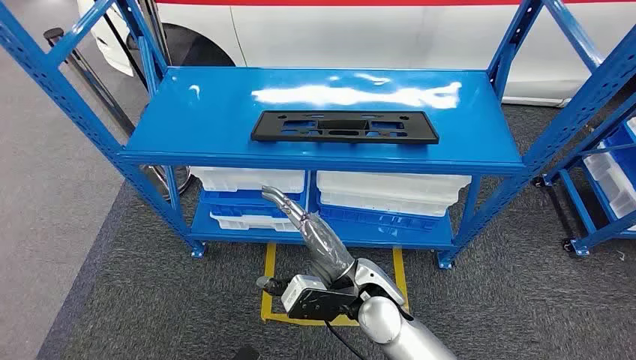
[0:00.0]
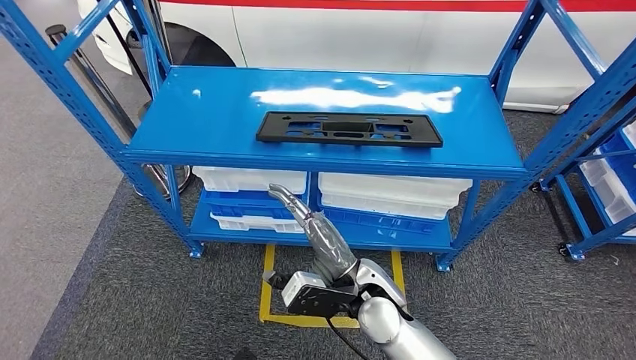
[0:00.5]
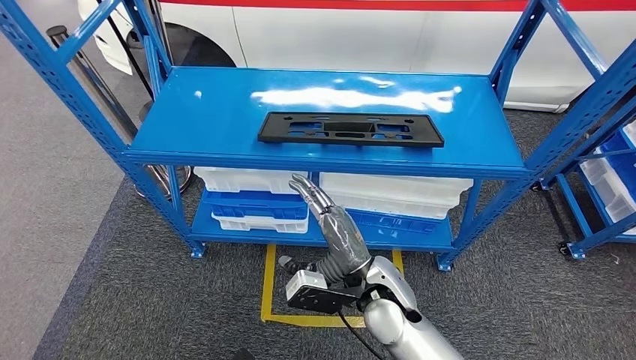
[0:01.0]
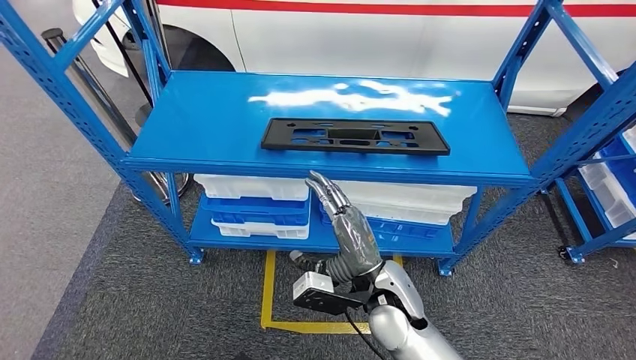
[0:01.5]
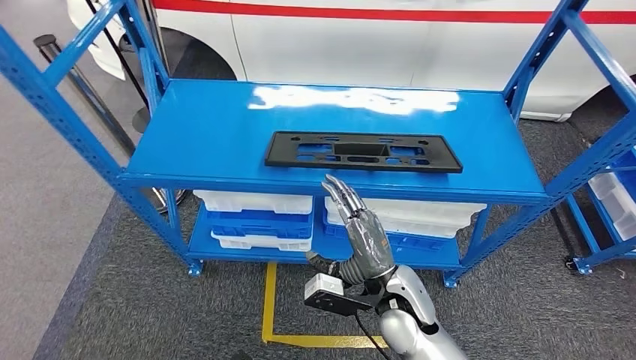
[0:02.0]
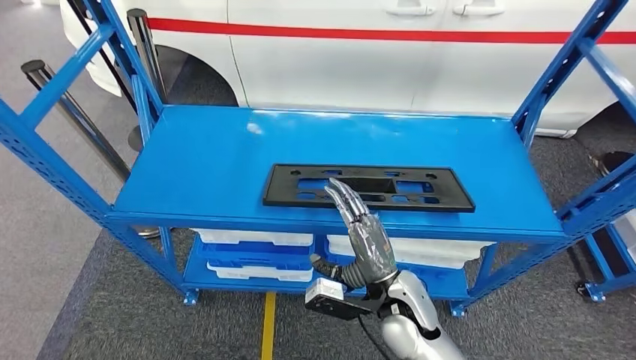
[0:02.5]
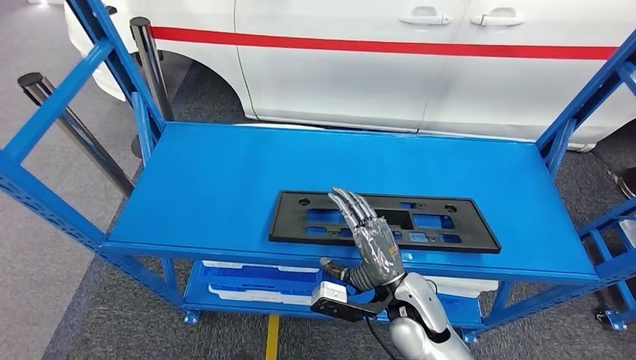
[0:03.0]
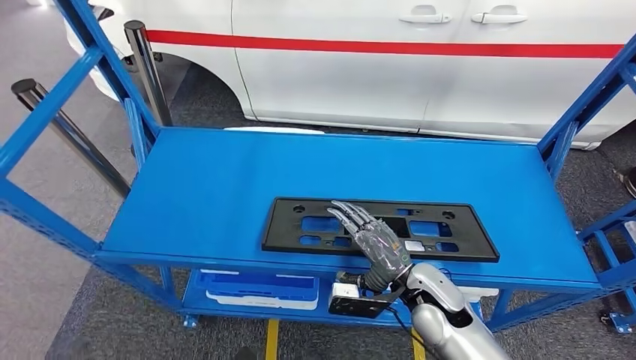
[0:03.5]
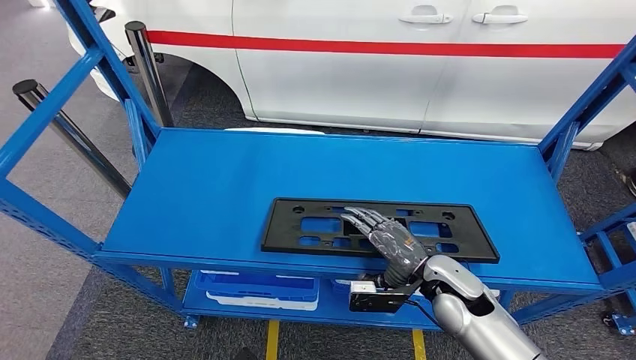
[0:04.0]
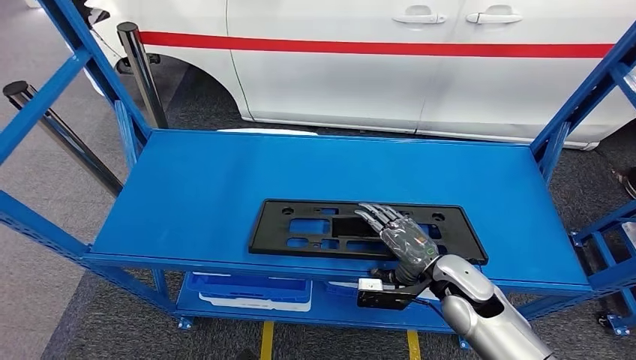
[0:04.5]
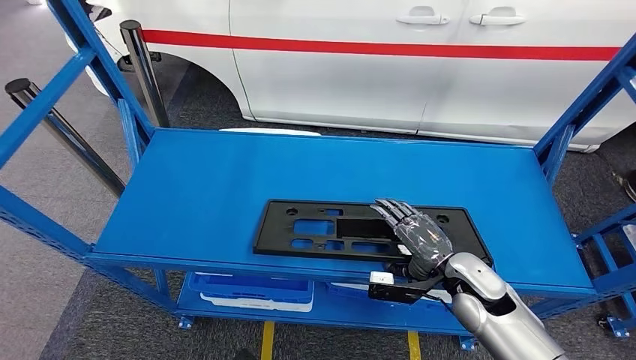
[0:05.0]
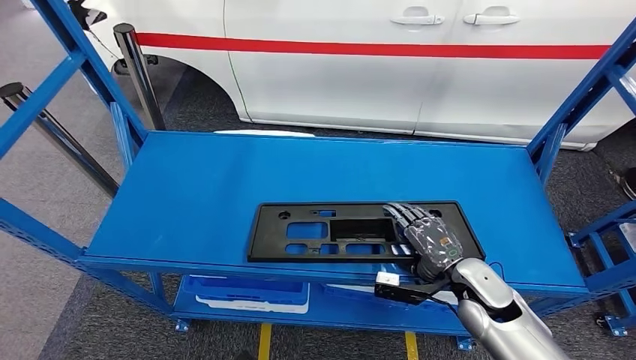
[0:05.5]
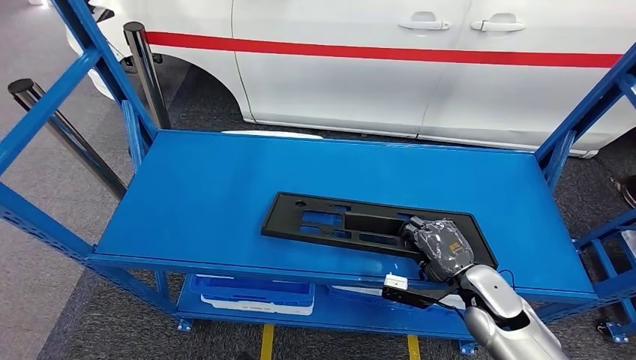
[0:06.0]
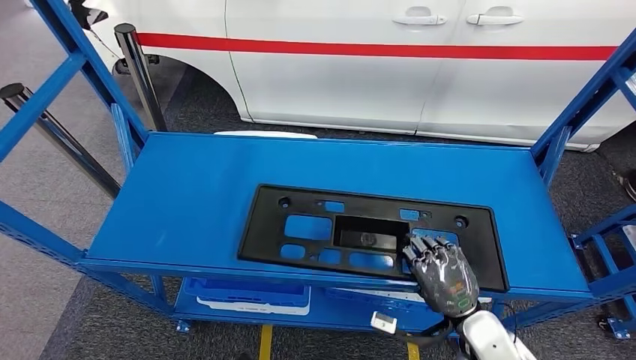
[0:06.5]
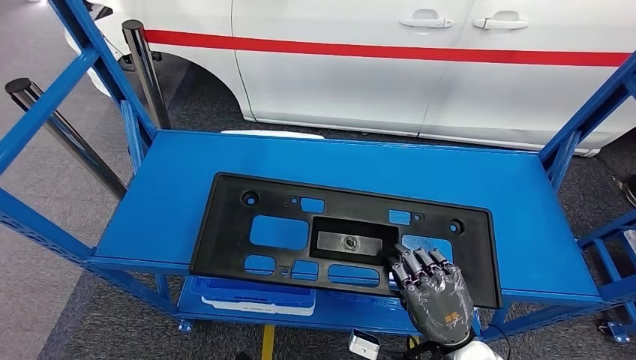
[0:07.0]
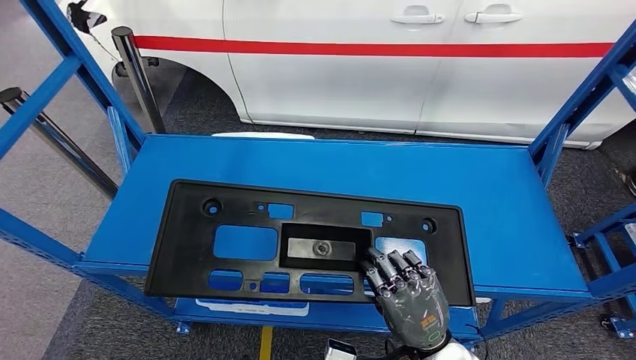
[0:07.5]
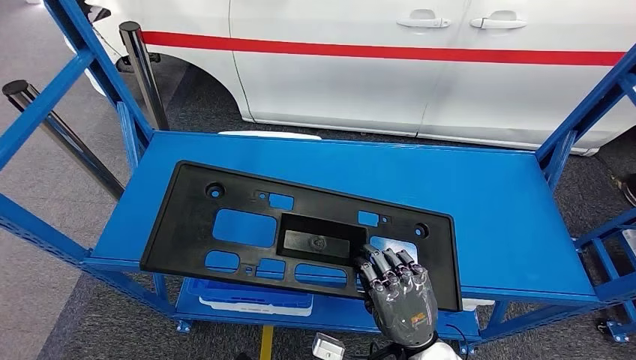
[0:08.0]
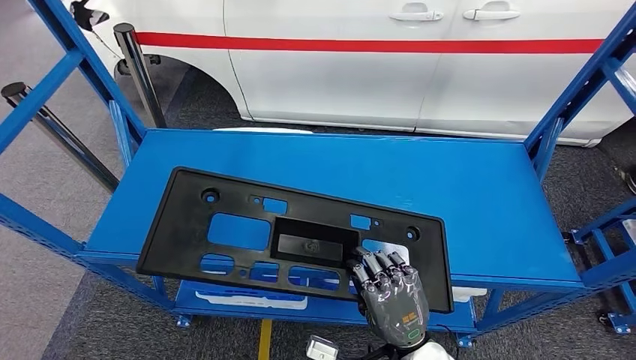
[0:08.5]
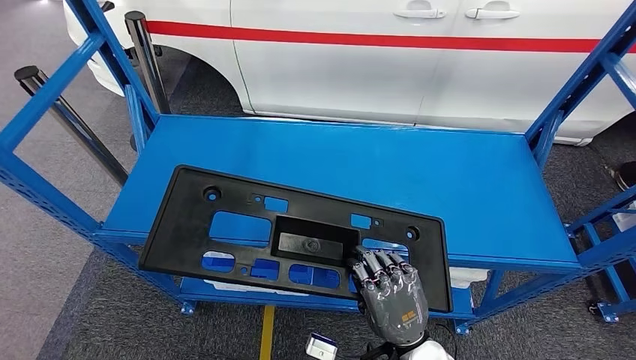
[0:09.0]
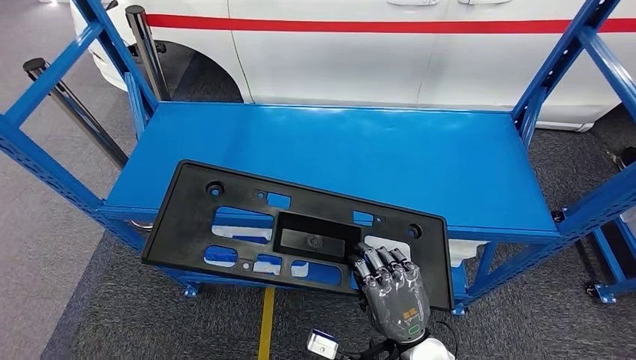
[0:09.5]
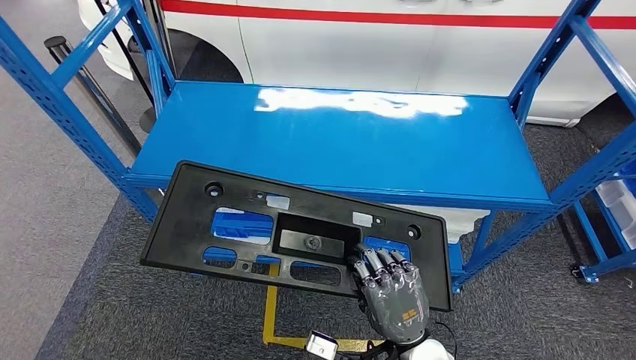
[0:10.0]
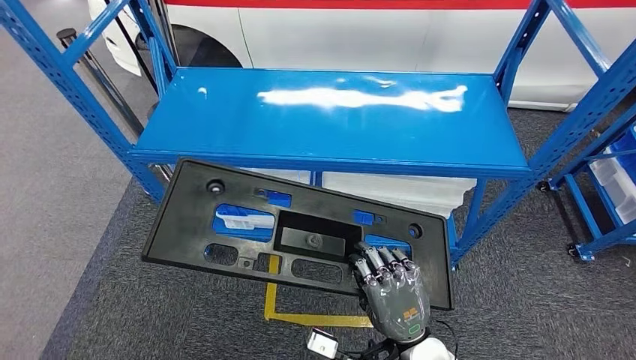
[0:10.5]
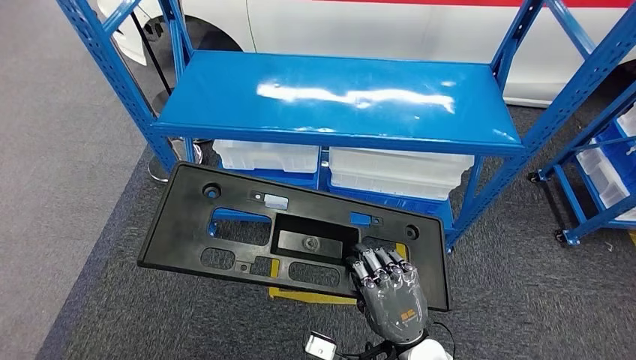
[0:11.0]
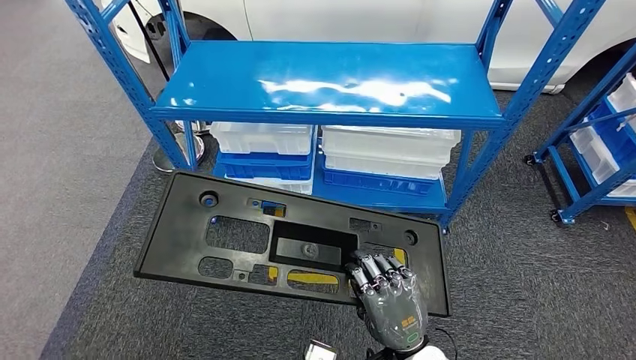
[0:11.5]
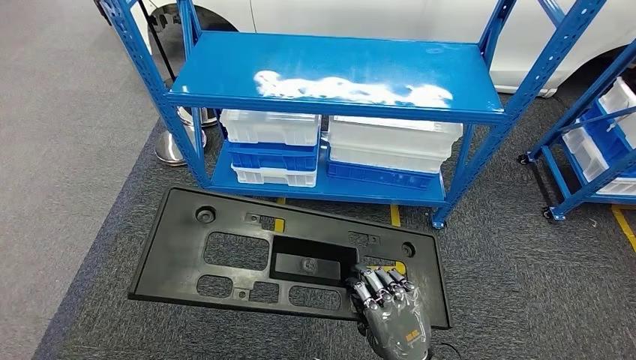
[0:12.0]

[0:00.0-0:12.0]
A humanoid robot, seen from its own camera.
Step, 0:00.0 to 0:09.5: Pick up the large material from the shelf.

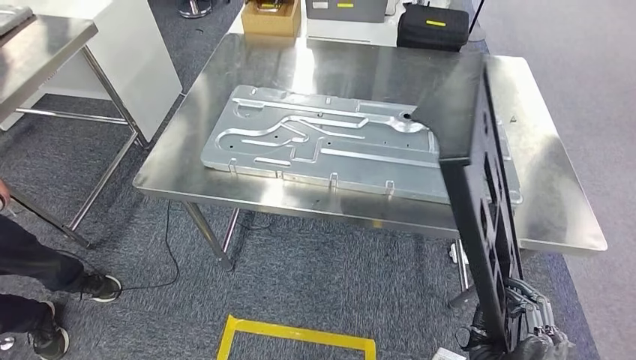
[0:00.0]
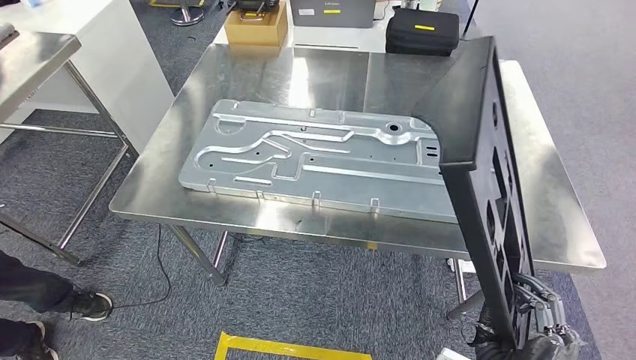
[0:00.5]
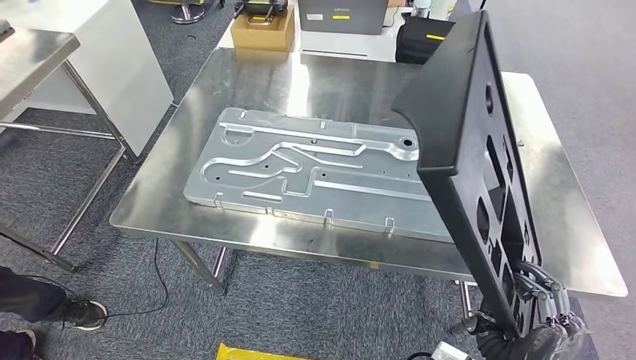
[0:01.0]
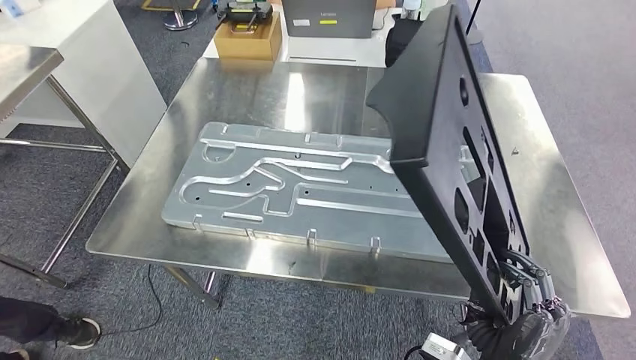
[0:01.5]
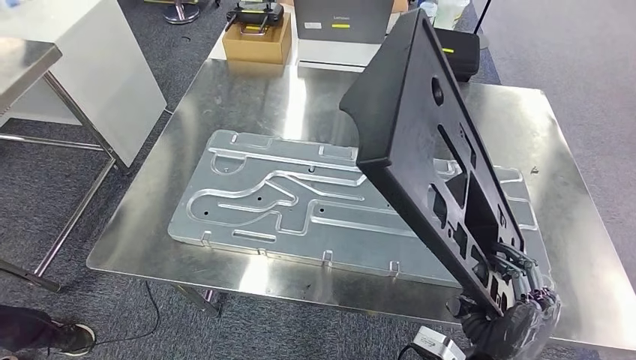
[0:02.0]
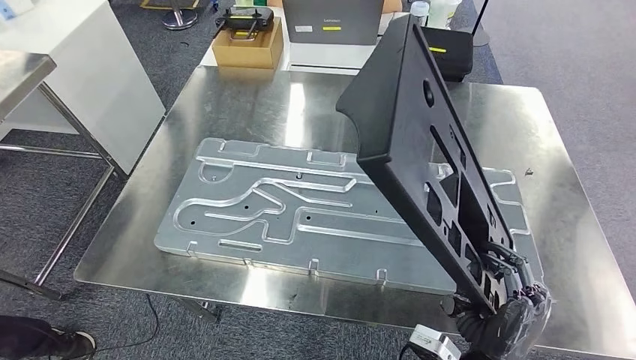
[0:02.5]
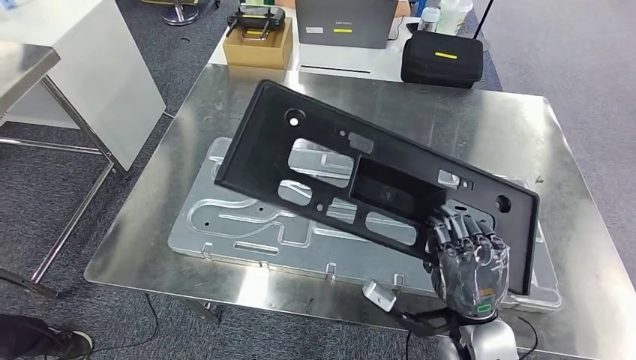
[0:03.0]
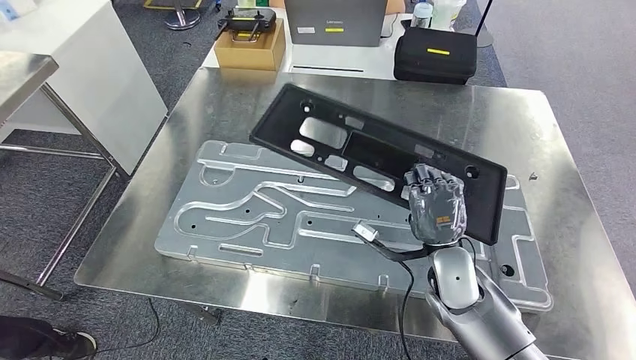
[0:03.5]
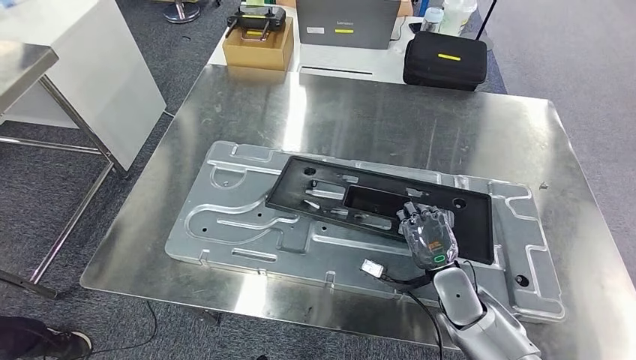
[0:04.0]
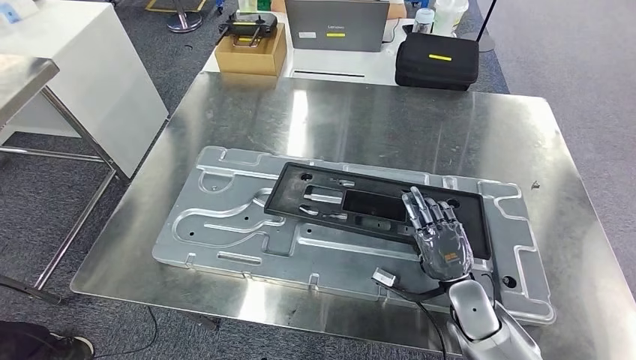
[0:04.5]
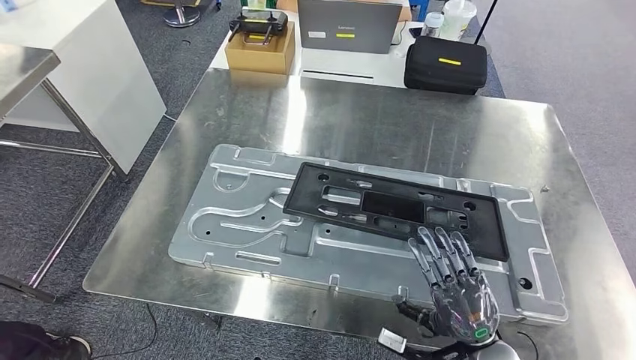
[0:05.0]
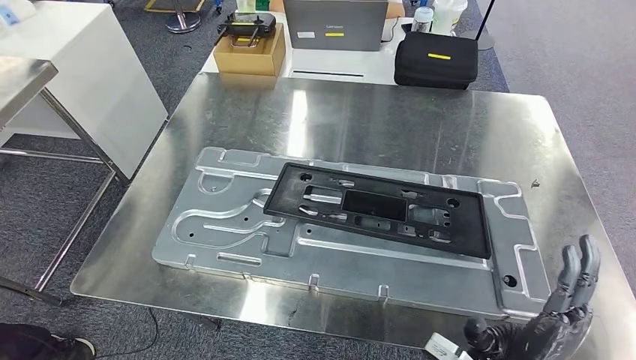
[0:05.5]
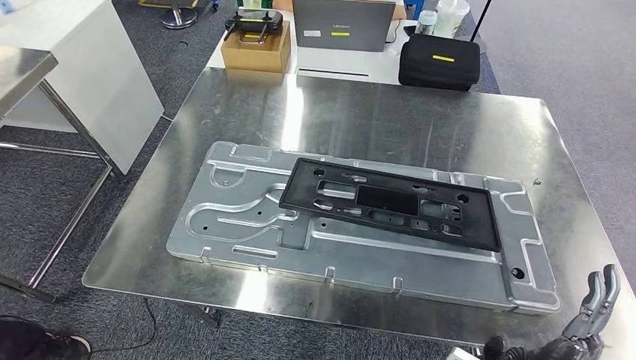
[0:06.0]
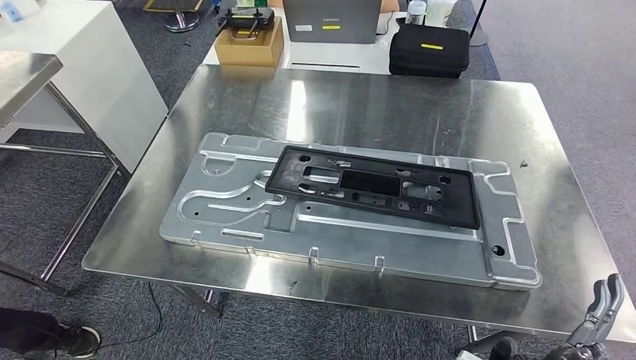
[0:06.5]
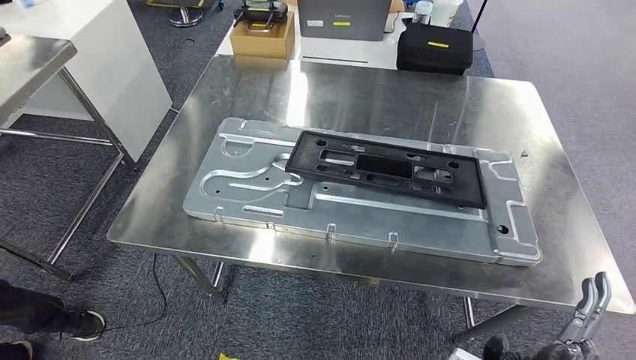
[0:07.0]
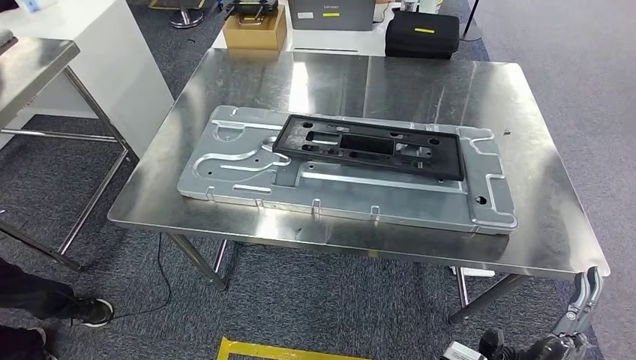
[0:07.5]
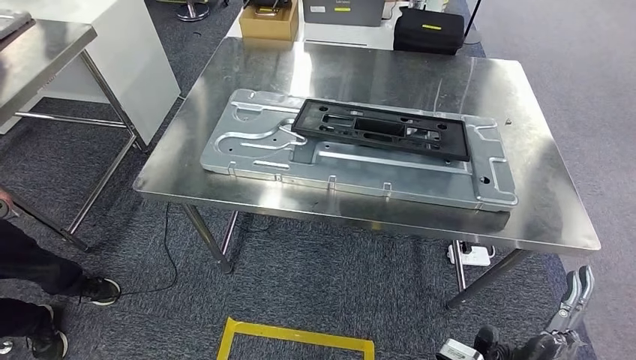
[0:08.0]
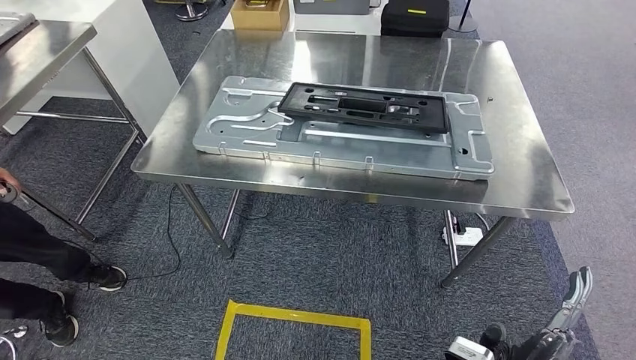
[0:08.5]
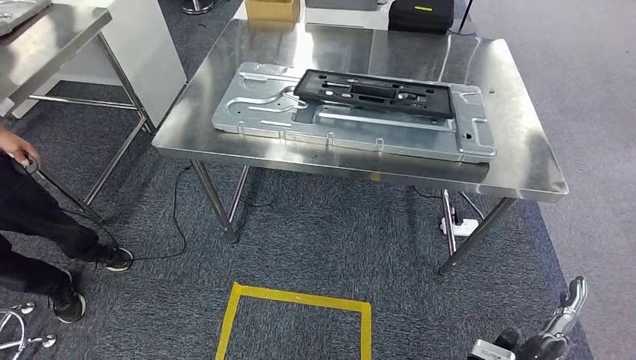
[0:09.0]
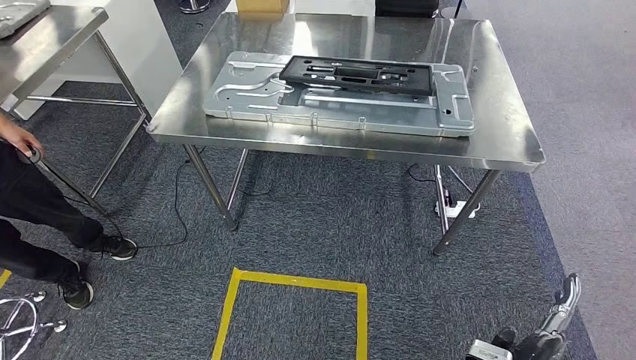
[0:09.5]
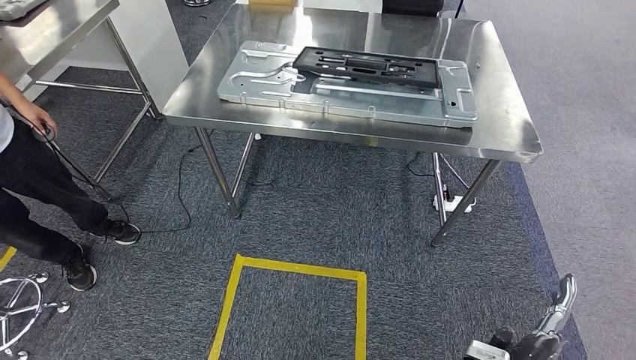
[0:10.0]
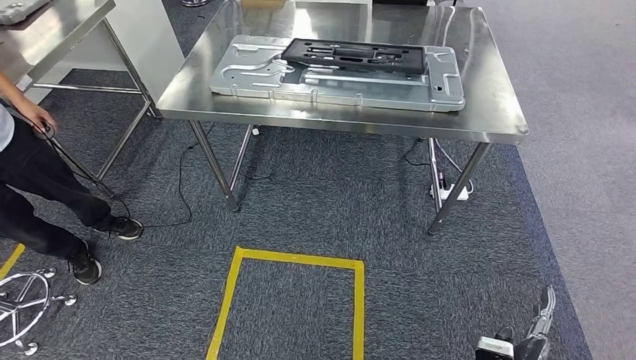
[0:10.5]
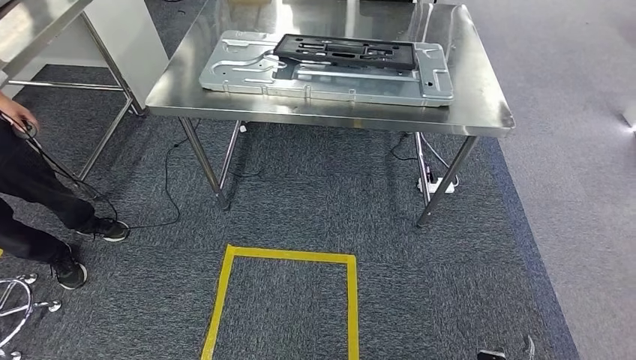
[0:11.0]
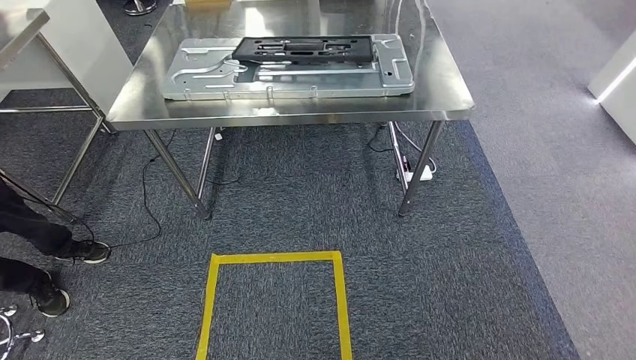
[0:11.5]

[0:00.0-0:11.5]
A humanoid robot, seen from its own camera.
Step, 0:00.5 to 0:08.0: Insert the large material into the corresponding slot on the workbench.
